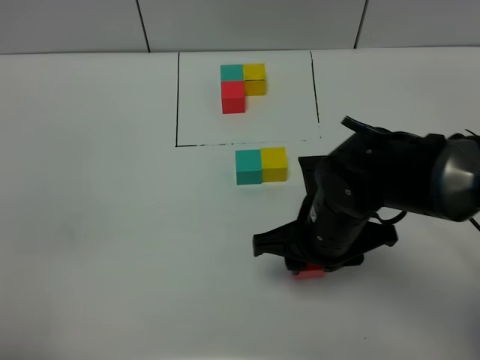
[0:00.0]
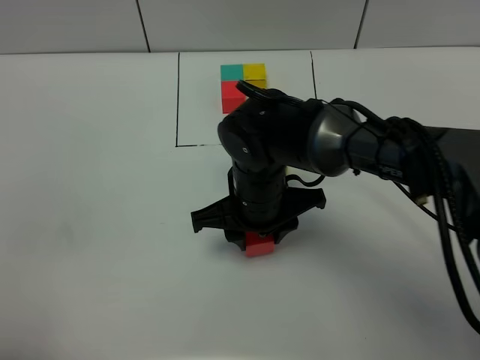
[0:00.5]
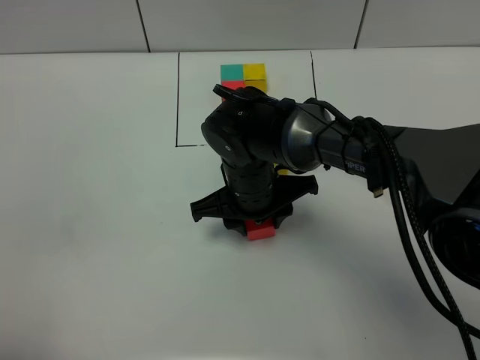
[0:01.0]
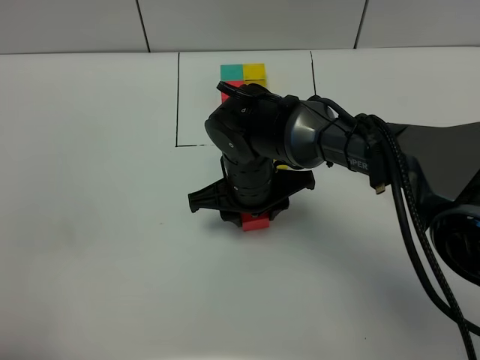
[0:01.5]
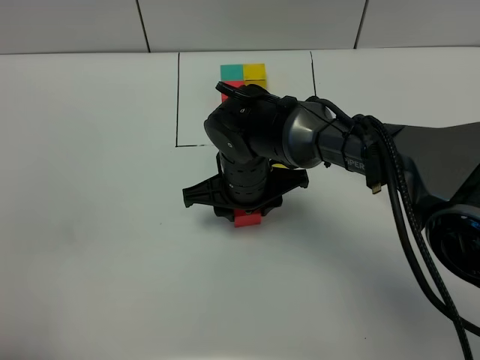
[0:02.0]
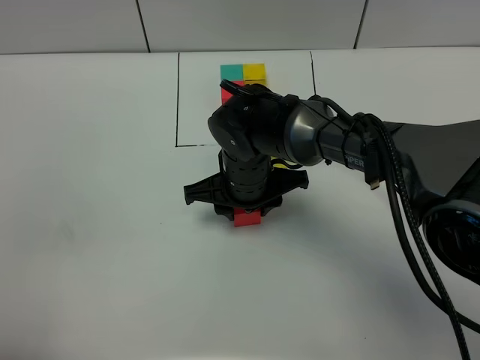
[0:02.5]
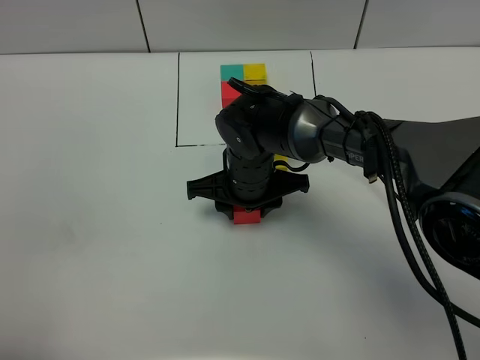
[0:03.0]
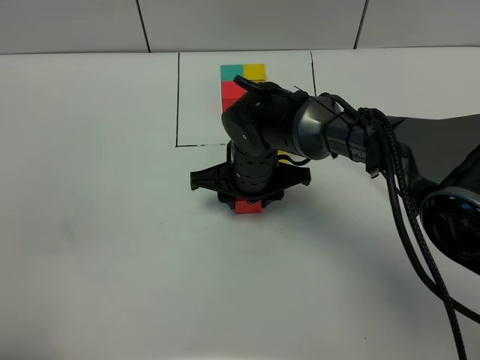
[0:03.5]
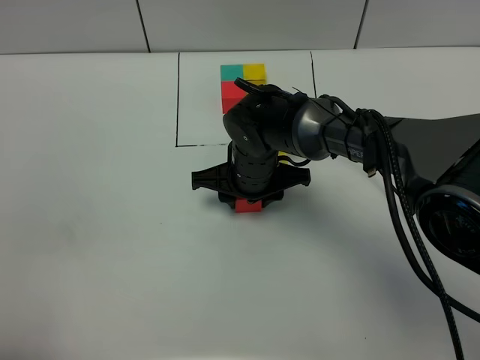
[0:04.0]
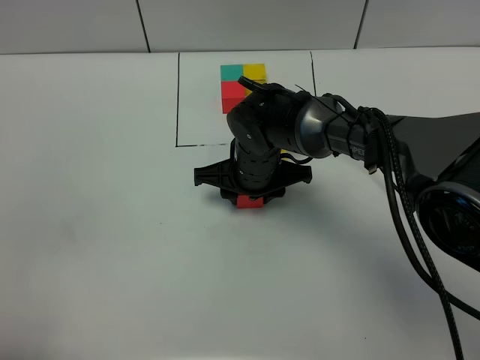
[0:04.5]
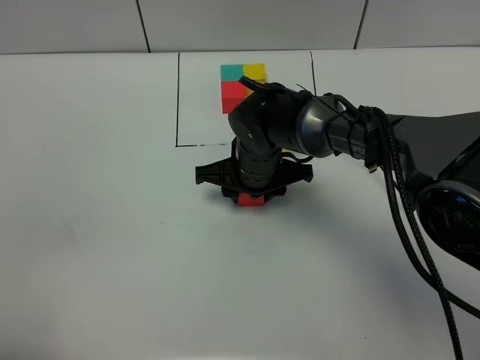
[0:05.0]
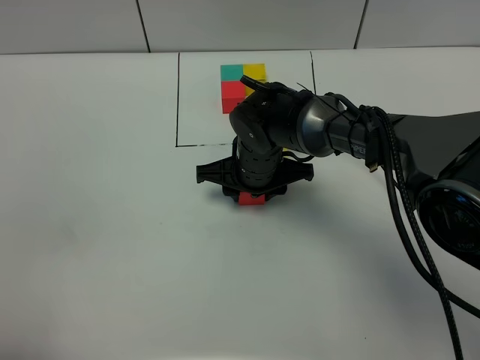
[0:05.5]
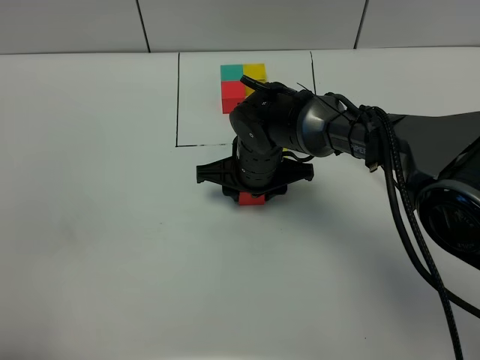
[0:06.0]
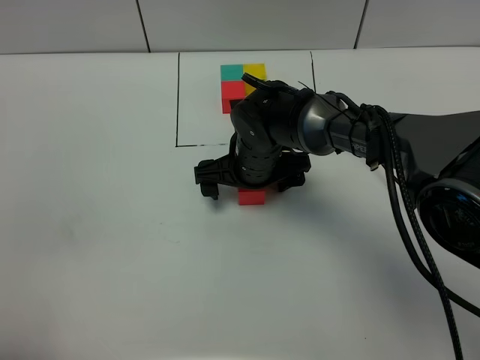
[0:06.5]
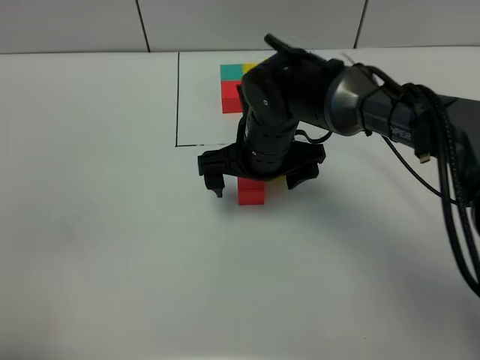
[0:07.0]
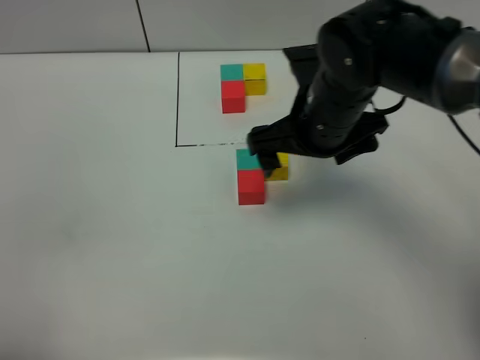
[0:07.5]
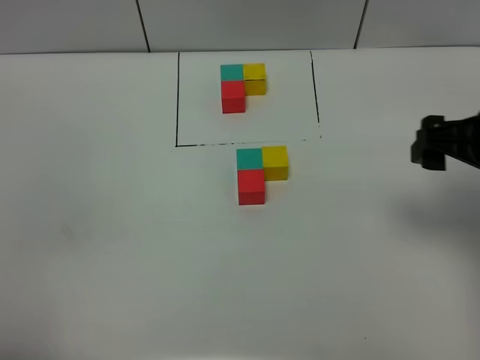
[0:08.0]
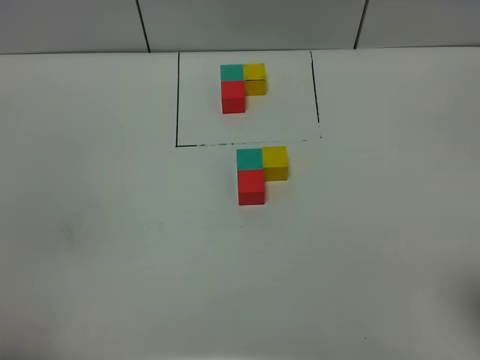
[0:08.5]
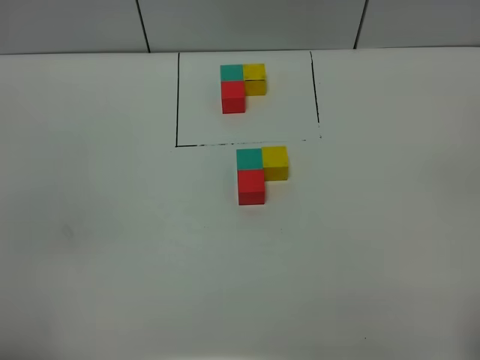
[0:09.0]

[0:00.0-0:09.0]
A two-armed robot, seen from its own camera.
Task of the whole recording: According to the building block template in front, assemble the scattered blocks together.
Step, 0:00.0 to 0:06.5: Put the red build block on the behind of the green build block.
0:00.0 to 0:02.0: The right gripper goes approximately 10 cm forward and to the left.
0:02.0 to 0:04.5: There are only small adjustments of the grippers.
0:04.5 to 0:07.0: The right gripper travels upward by about 5 cm, and opens its fingers.
0:07.0 to 0:09.0: The right gripper moves backward and to the right, about 40 cm.

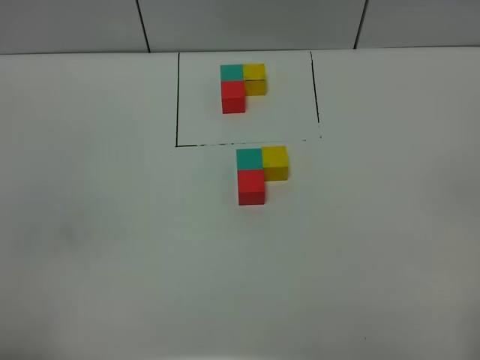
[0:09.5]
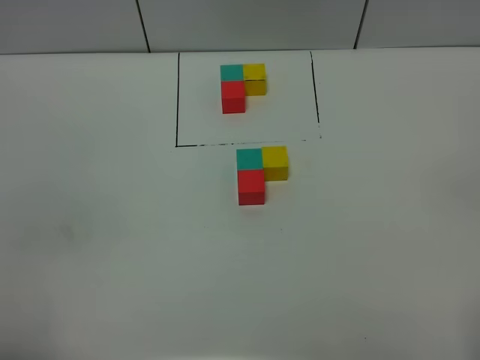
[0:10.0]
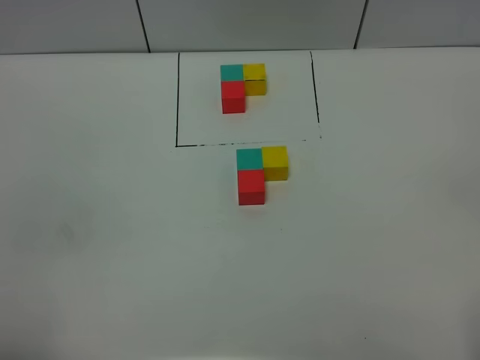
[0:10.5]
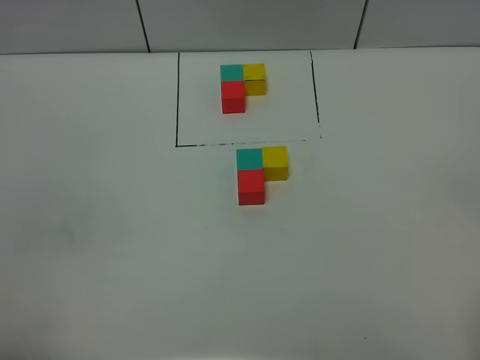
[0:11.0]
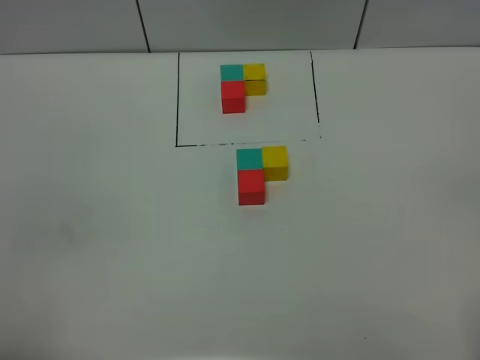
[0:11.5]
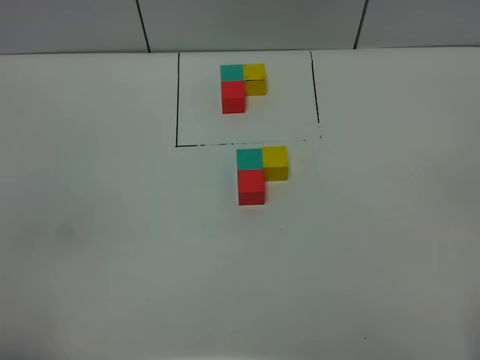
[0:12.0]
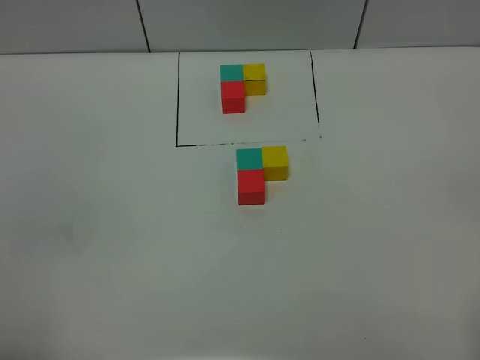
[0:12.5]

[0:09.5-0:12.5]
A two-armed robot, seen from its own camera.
Task of the whole recording: According to the building block template in front, assemble the scattered blocks together.
0:09.5 to 0:12.5: Neither gripper changes place.
